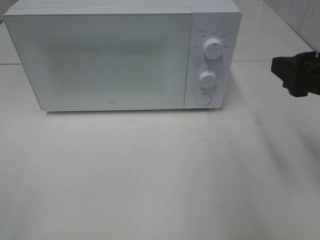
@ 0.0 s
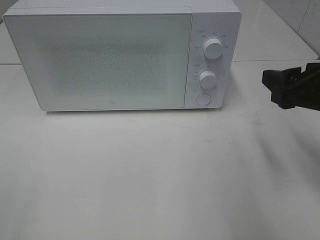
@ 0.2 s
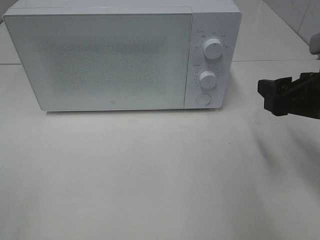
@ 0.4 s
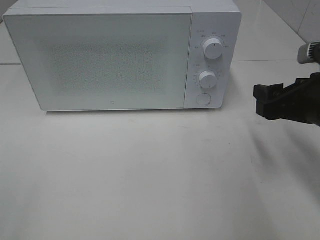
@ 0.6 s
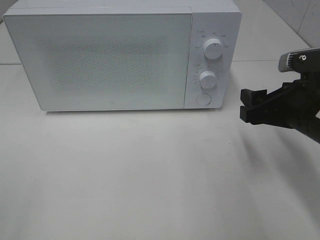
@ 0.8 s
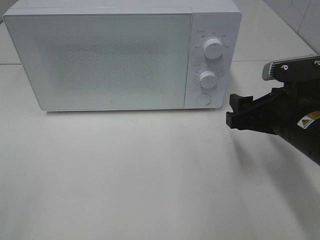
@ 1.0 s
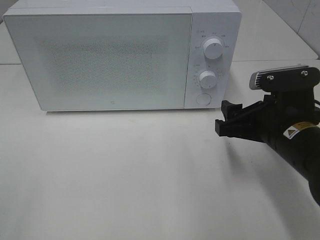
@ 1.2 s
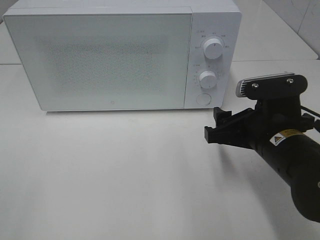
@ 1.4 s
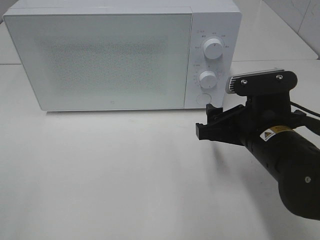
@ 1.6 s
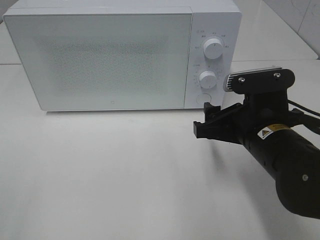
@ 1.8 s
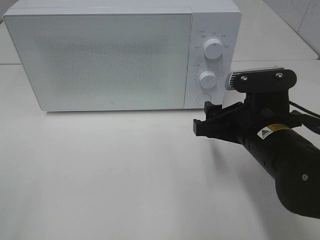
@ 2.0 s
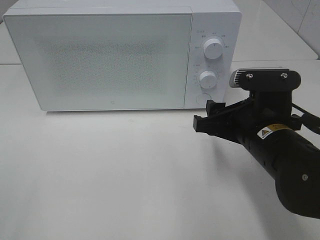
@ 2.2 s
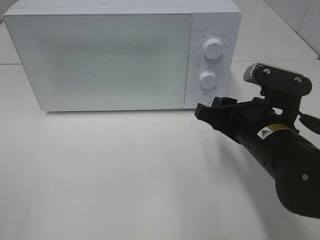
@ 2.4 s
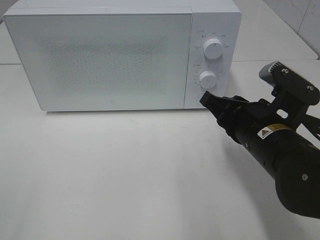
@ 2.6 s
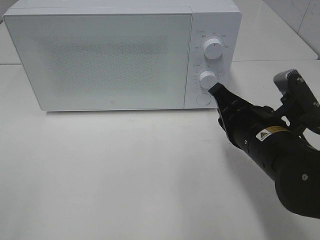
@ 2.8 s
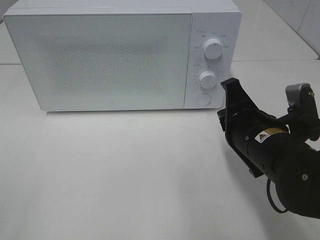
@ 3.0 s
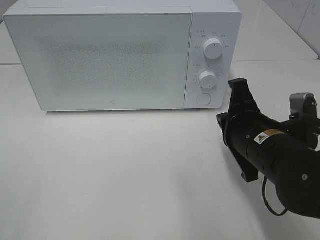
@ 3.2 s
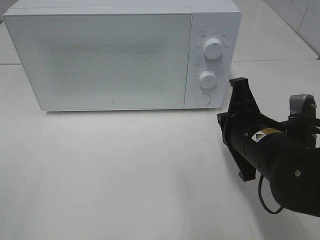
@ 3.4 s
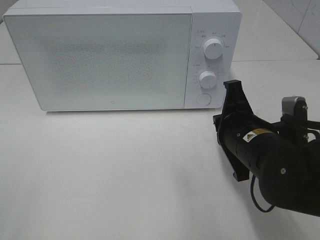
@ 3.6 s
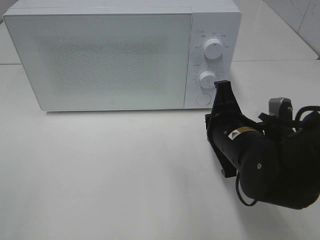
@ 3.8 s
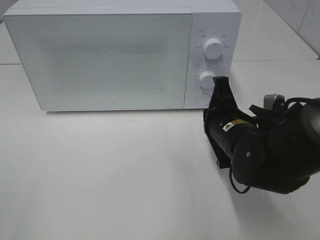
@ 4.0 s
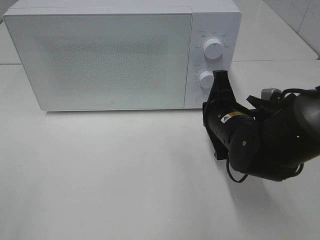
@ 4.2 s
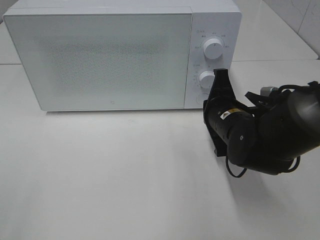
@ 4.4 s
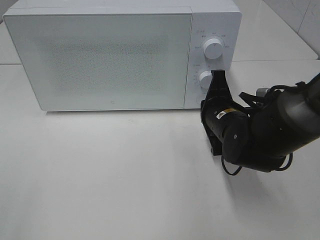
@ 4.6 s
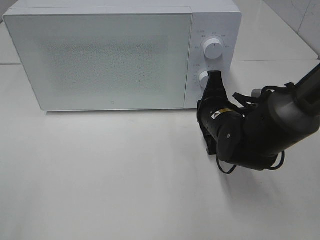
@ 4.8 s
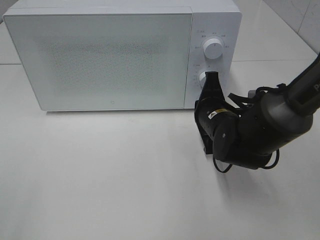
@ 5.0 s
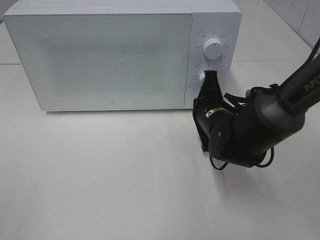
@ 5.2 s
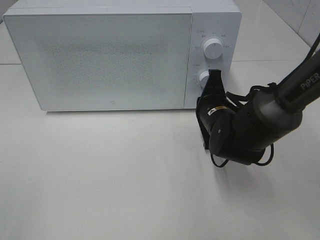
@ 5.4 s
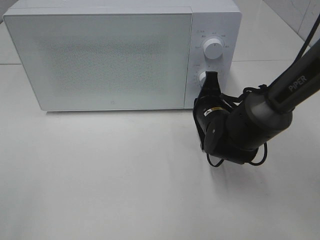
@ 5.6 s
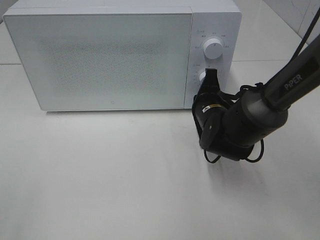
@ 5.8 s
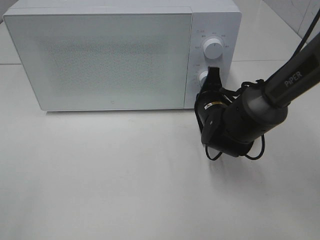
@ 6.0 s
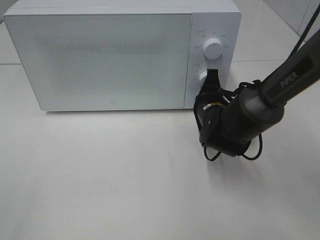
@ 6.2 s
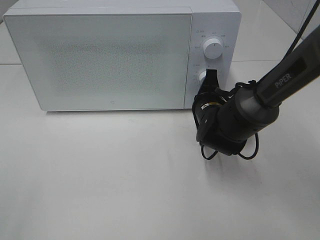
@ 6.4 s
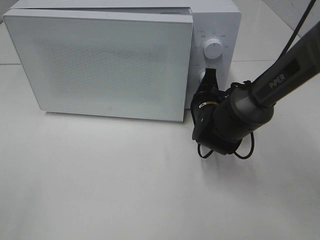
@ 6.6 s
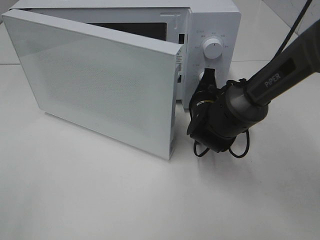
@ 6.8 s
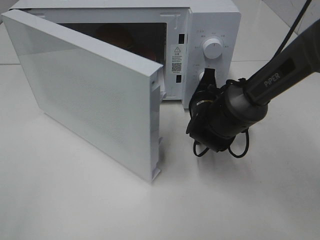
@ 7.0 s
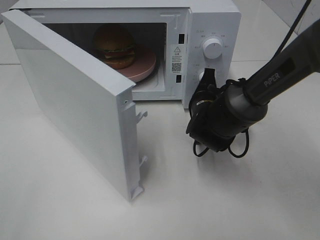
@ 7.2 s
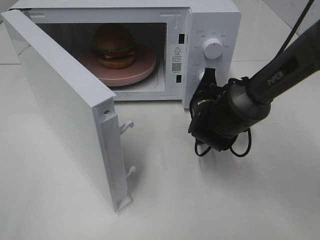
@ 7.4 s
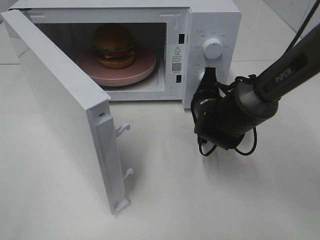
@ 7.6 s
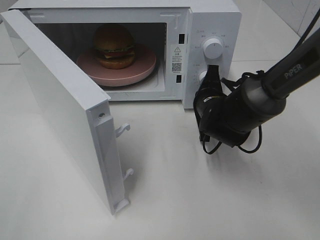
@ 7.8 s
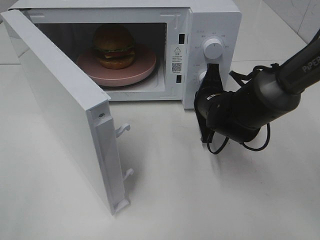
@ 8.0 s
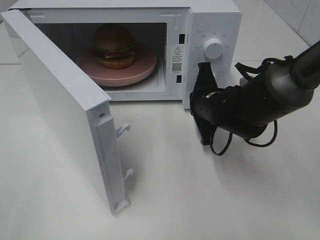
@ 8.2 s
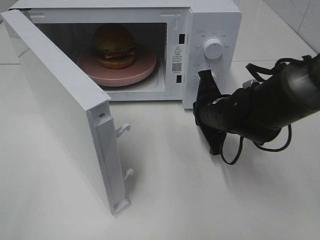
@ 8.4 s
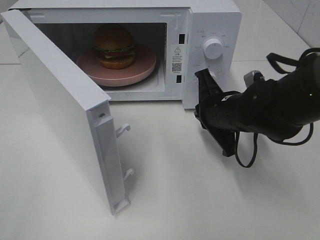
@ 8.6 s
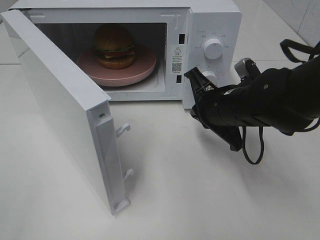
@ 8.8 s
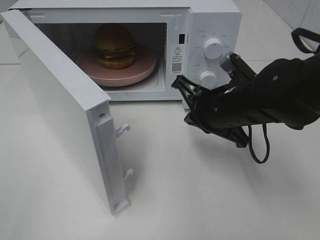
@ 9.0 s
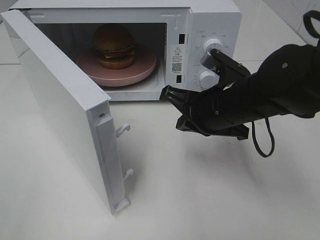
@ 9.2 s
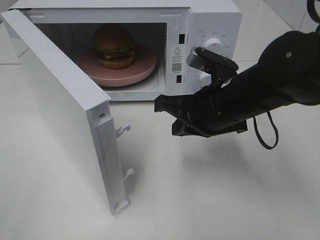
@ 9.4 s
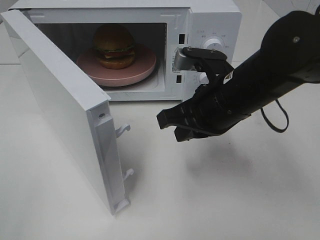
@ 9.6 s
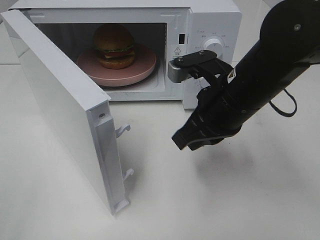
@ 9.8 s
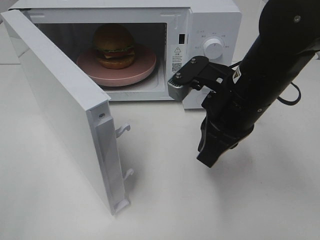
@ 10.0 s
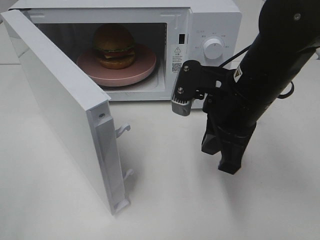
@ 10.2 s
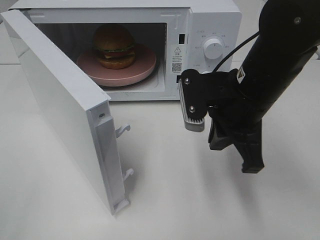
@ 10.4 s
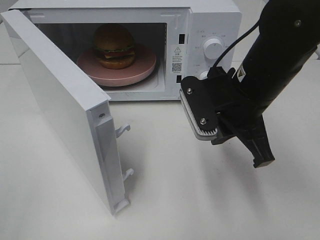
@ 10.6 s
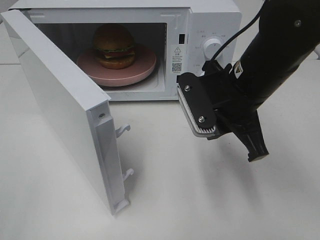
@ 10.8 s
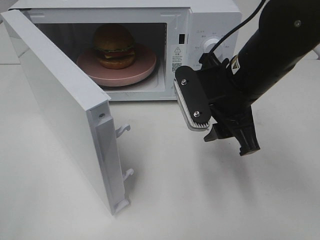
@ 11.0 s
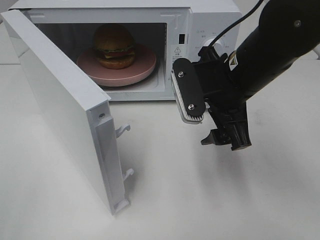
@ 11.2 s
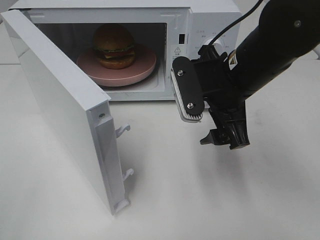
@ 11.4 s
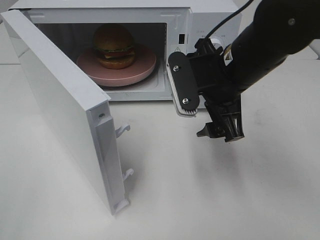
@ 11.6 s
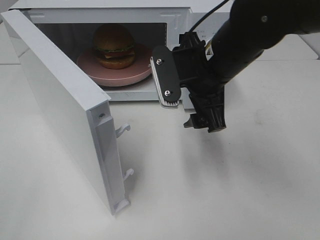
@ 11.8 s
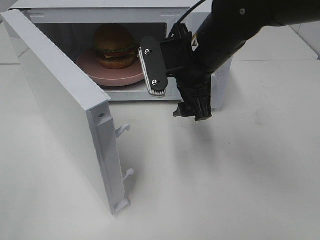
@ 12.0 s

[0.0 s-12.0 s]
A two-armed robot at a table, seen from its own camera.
Task of the whole recording: Heat the burger.
Step, 0.0 to 8.0 s: Right hand: press the switch.
0.0 to 1.6 s: The right gripper moves downward and to the left, approximately 15 cm.
1.6 to 3.0 s: The right gripper closes up.
3.0 to 4.4 s: The right gripper goes some 10 cm forward.
4.4 to 6.0 s: The right gripper goes some 5 cm forward.
7.6 to 9.0 s: The right gripper goes roughly 10 cm backward and upward.
9.0 to 10.4 s: The right gripper shifts approximately 5 cm upward.
10.4 to 12.0 s: The right gripper shifts some 10 cm forward and to the left, and opens.

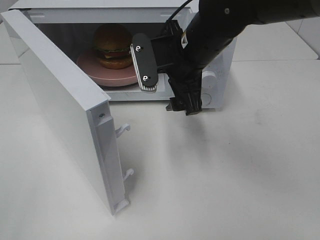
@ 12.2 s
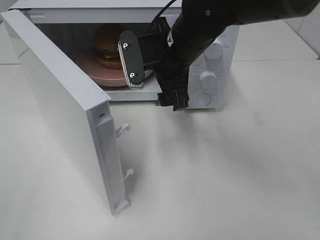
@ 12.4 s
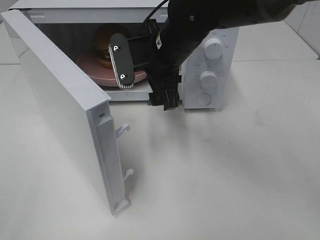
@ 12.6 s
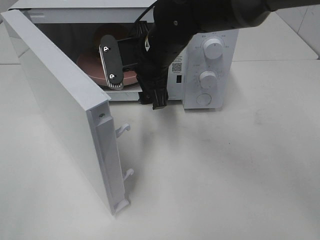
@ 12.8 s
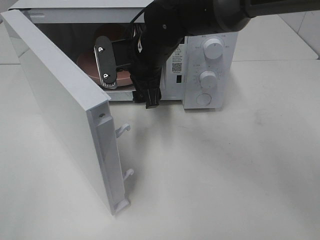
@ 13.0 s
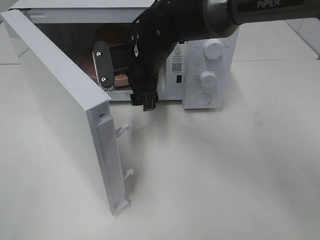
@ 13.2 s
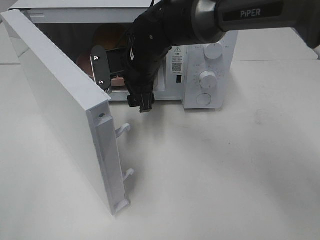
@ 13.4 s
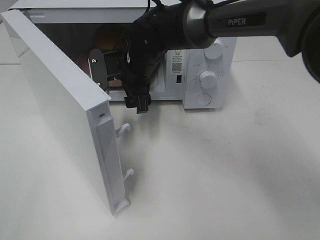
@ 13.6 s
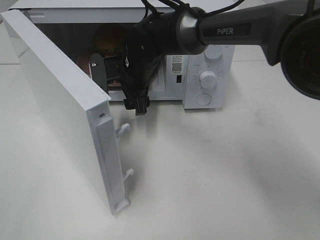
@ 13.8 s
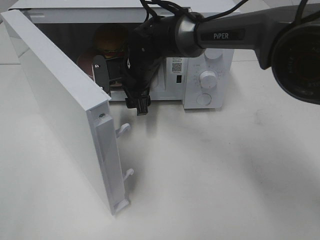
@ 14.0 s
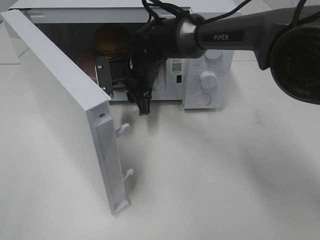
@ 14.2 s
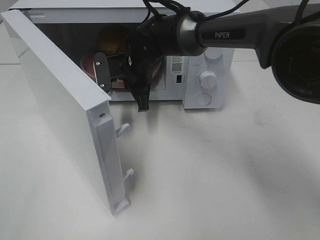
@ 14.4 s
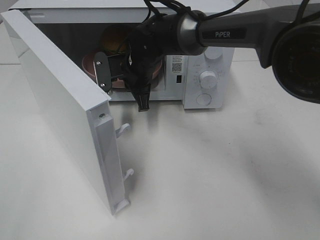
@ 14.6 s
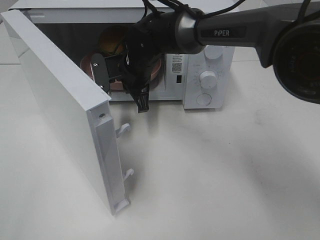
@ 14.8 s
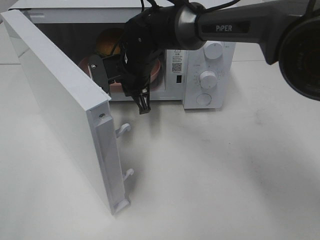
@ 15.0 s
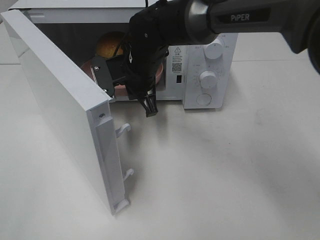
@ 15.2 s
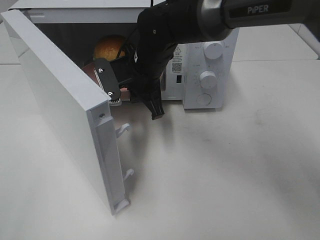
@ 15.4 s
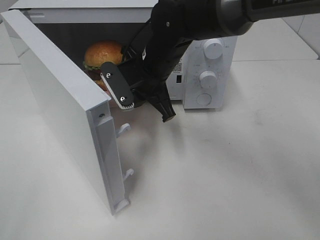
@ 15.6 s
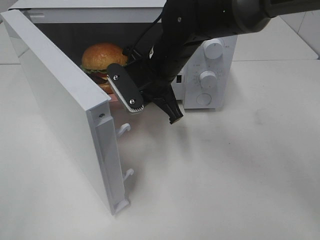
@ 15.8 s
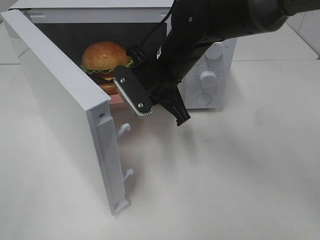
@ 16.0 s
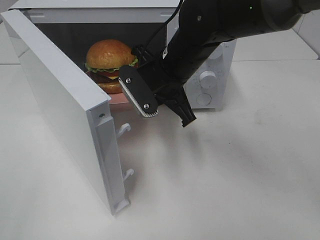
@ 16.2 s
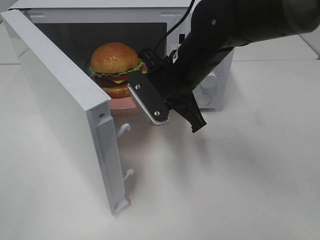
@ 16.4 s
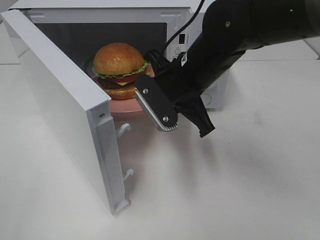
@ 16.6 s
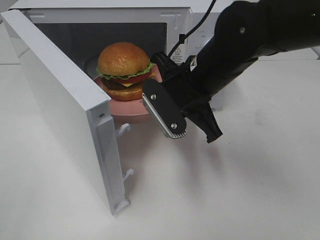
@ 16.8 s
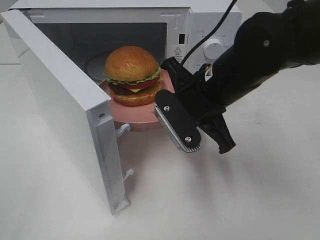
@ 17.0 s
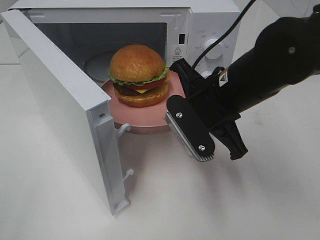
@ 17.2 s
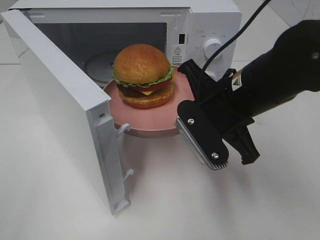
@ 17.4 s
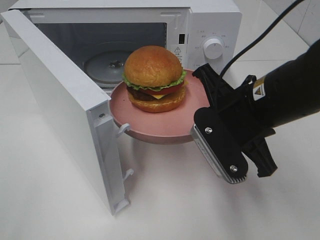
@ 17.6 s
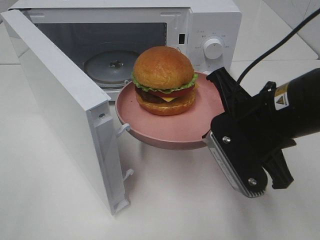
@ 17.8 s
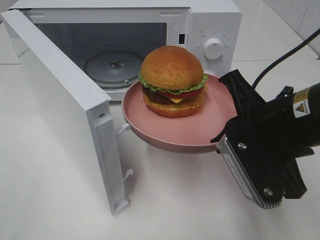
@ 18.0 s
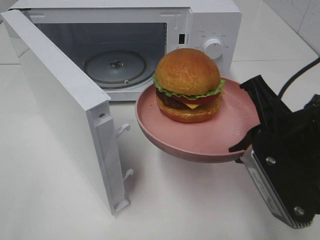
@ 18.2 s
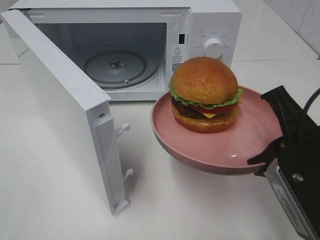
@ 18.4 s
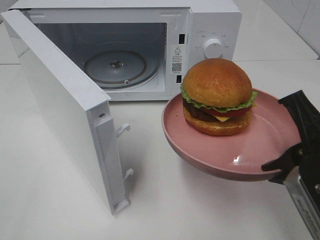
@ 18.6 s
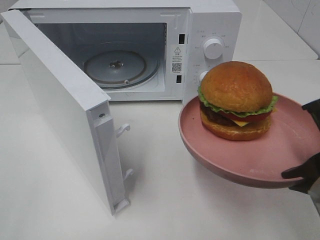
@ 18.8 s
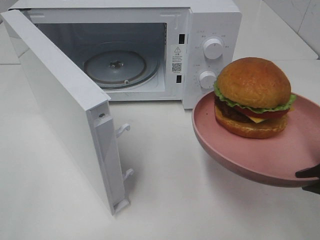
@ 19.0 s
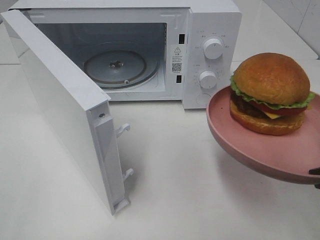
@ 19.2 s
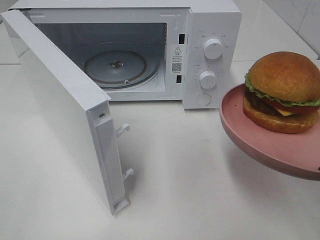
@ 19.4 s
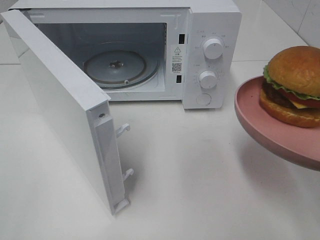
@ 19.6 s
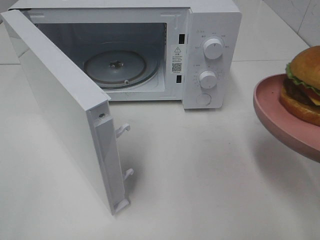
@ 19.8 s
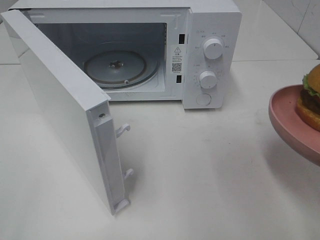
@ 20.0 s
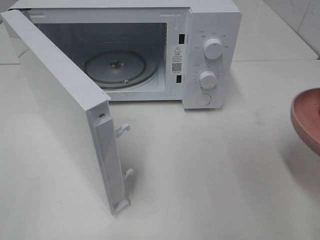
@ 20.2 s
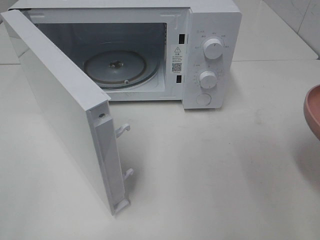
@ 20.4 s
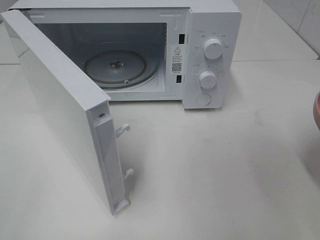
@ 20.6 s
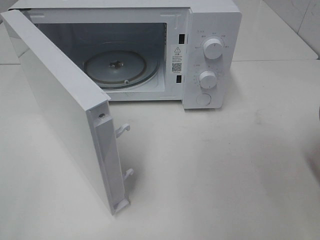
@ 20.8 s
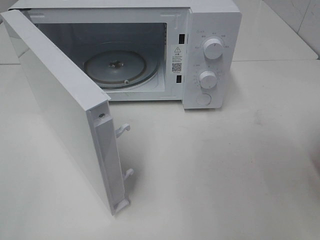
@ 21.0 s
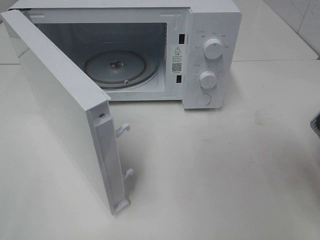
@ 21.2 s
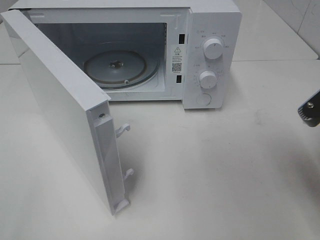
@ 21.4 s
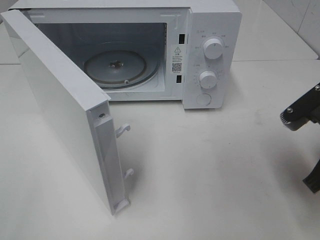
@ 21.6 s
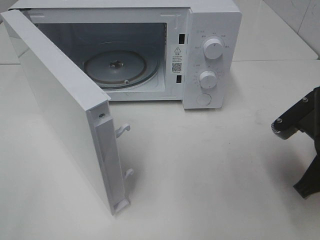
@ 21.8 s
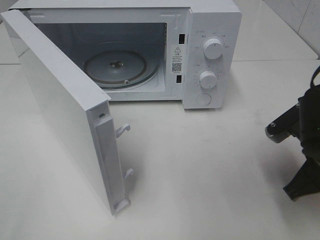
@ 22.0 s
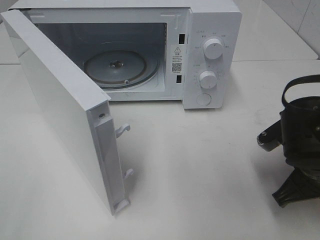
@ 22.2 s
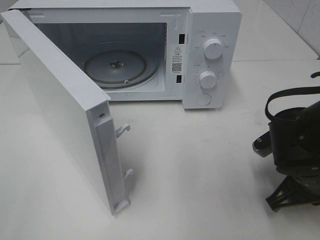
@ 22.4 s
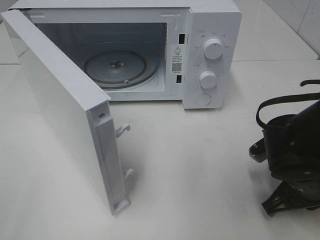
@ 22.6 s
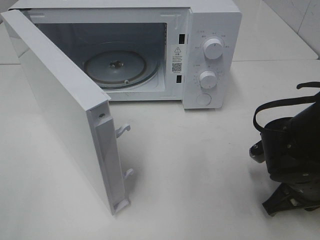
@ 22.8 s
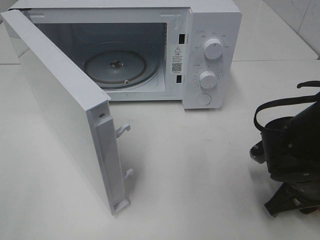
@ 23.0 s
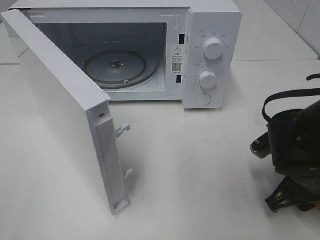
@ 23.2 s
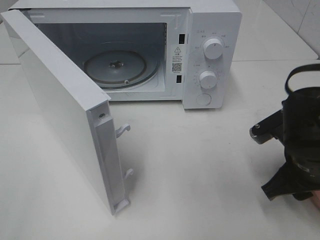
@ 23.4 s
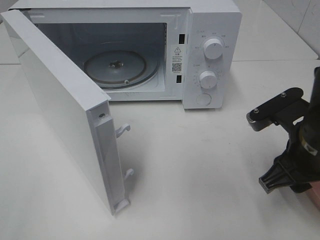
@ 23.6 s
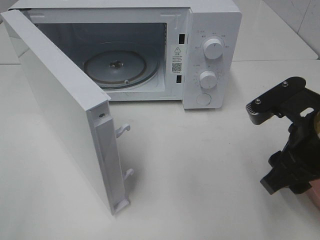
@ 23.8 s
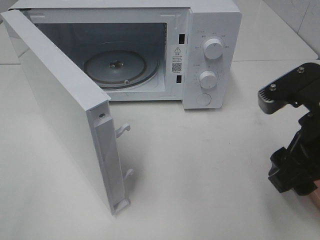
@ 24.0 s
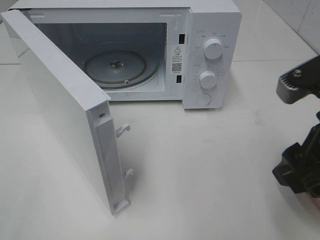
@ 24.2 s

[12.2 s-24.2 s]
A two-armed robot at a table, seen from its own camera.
Task of the whole recording: Heat the burger.
Step, 12.2 to 14.4 s: Right hand: grab the plate with the hamburger.
Step, 14.6 to 23.2 s: Right hand: place the plate on the table.
12.2 to 13.8 s: The right gripper travels forward, to the left and downward by approximately 15 cm.
13.8 to 15.2 s: The right gripper closes up.
15.2 to 16.6 s: The right gripper shifts approximately 10 cm backward and to the right.
16.6 to 18.2 s: The right gripper is displaced backward and to the right by some 20 cm.
18.2 to 19.8 s: The right gripper goes approximately 10 cm to the right and backward.
21.2 to 22.6 s: The right gripper shifts roughly 15 cm downward.
22.6 to 24.2 s: The right gripper heads upward, covering about 15 cm, and opens up.
